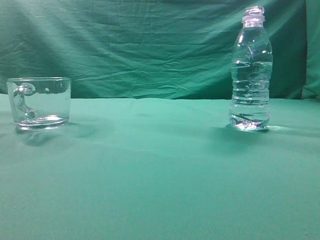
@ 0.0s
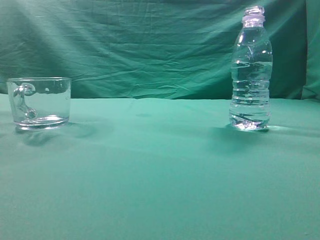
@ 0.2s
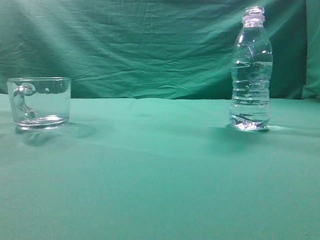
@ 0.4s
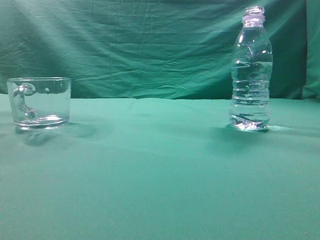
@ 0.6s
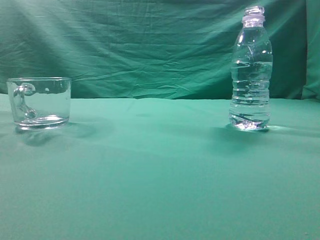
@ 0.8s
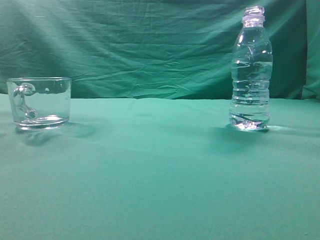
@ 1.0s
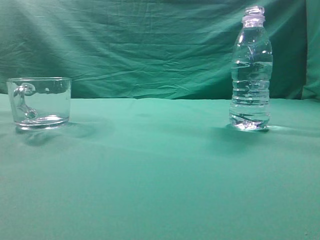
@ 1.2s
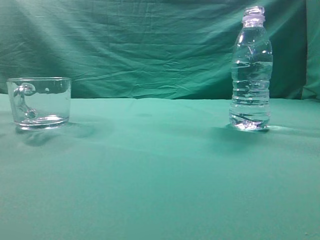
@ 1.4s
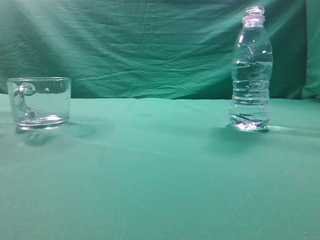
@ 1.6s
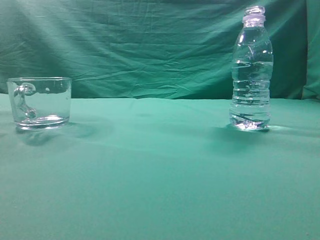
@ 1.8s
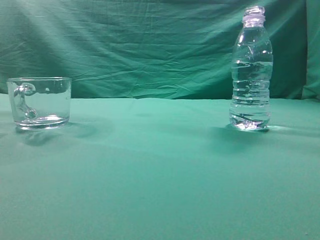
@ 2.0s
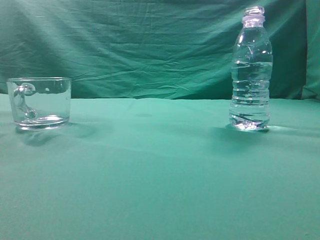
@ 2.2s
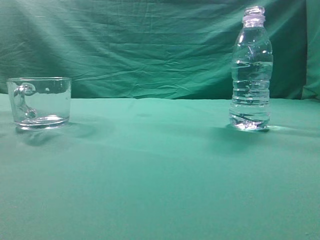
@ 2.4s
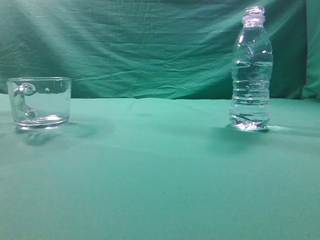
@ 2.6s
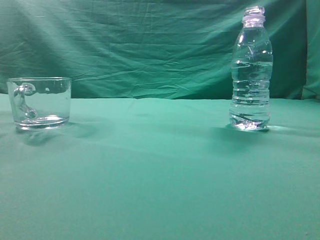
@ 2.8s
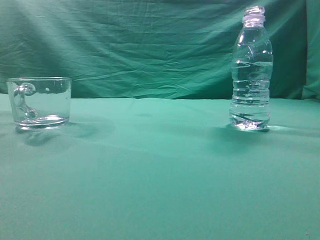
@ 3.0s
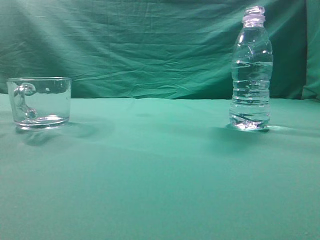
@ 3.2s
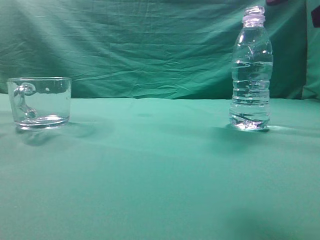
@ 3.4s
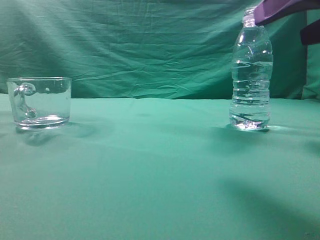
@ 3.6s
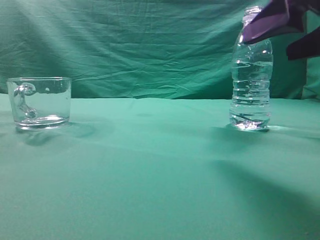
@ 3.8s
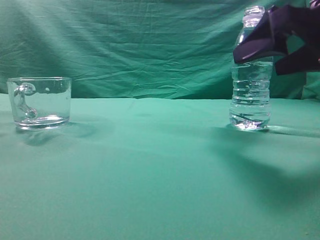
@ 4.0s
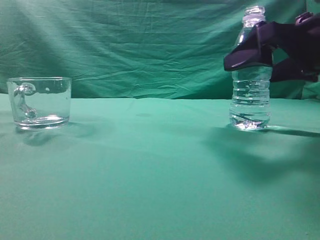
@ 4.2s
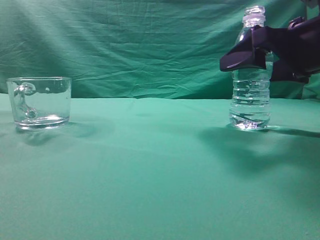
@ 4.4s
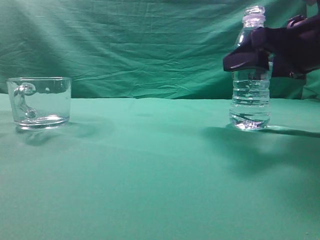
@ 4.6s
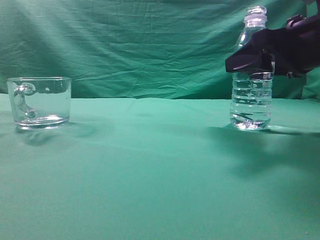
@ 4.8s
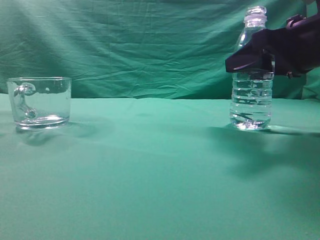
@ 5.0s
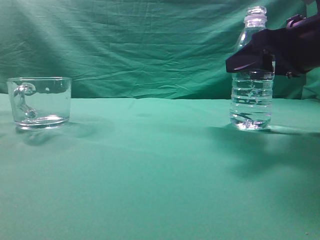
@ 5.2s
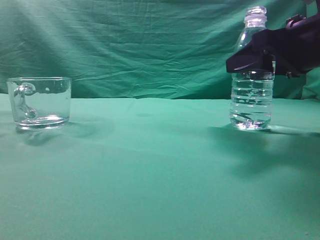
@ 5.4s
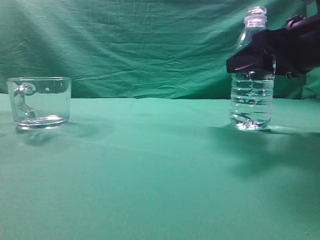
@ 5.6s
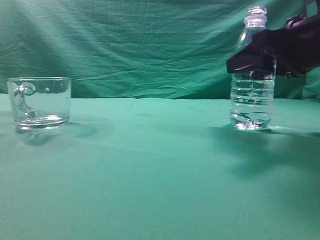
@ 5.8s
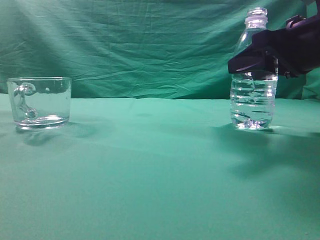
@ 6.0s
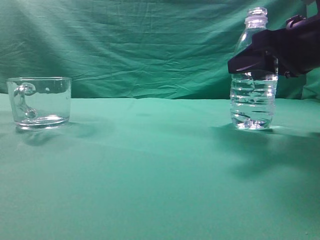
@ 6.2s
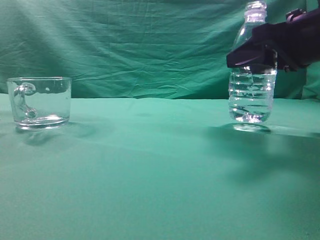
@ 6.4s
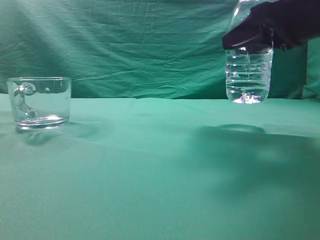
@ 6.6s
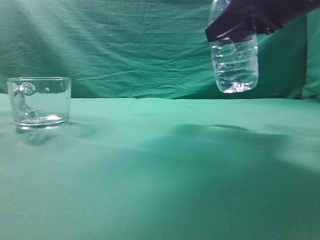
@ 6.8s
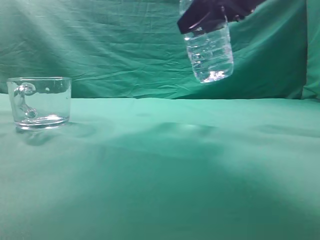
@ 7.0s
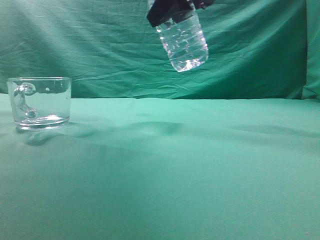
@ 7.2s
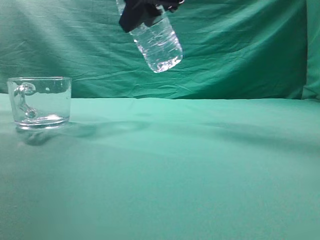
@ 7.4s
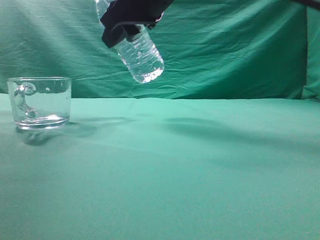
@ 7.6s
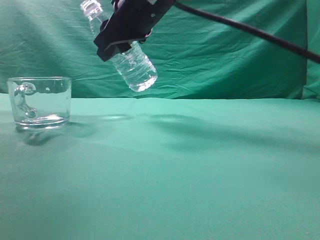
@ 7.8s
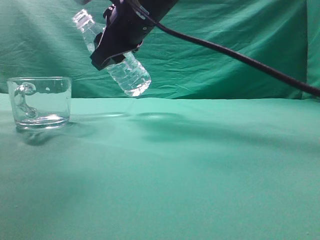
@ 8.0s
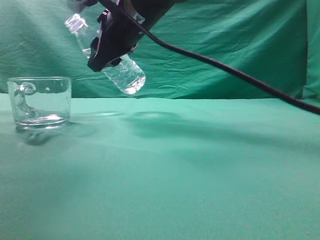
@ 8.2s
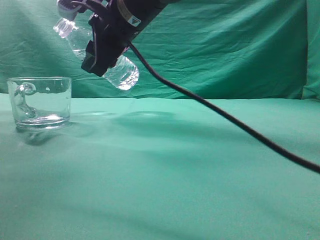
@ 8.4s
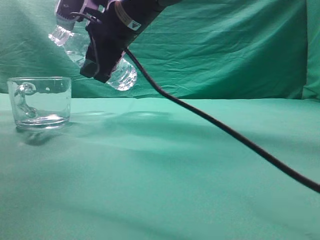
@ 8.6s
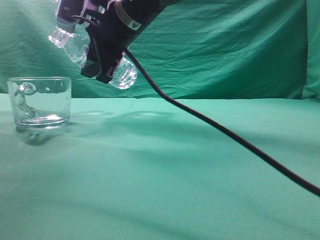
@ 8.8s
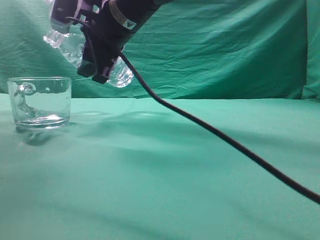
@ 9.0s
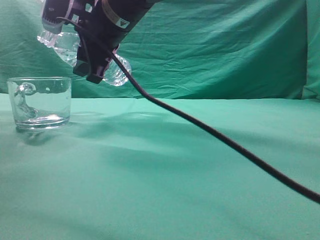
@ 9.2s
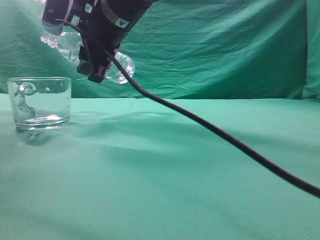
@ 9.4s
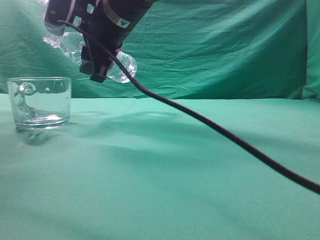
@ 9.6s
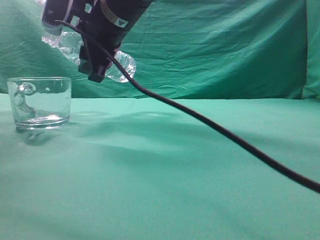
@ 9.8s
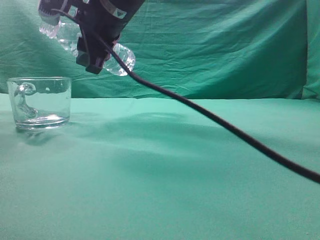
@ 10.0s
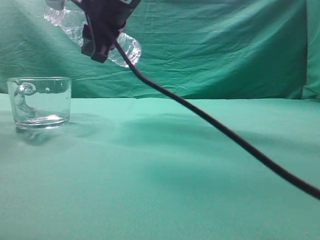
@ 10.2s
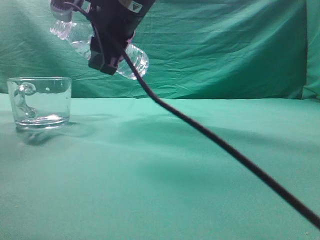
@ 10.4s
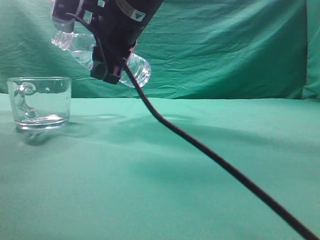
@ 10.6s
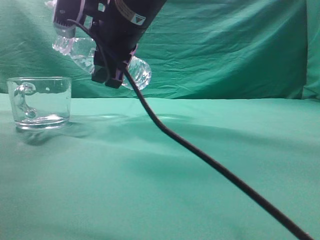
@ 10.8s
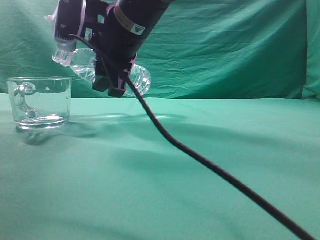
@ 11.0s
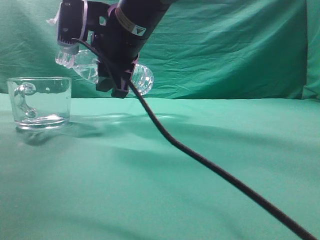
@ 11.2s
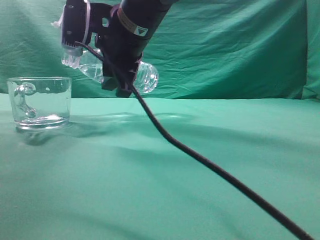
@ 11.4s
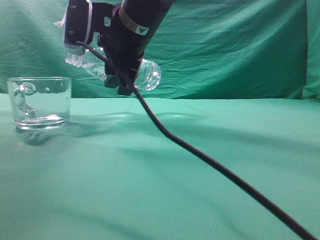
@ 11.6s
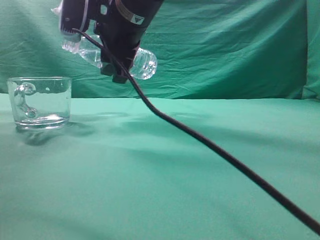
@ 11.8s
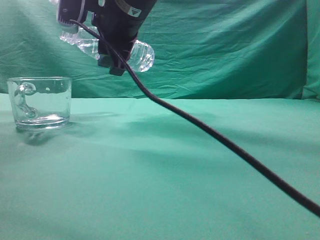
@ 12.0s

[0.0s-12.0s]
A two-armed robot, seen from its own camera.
Task of the whole recording: pick up the water bottle and pour the water in it into the glass.
Step, 0.0s to 6.8s: Grasp the mineral water bottle.
3.0s to 4.4s: The right gripper travels forward and downward by about 15 cm, and opens.
4.4s to 6.0s: The right gripper closes up.
6.0s to 7.6s: The right gripper shifts roughly 25 cm to the left and upward.
7.6s to 9.0s: The right gripper is displaced to the left by roughly 5 cm.
9.0s to 12.0s: The grippers stay close to where they were, moving slightly.

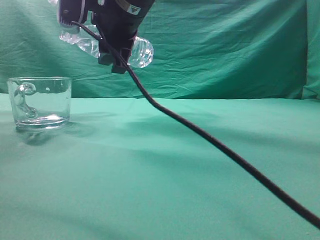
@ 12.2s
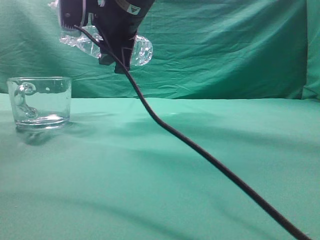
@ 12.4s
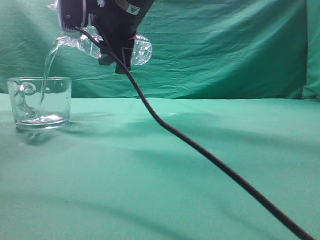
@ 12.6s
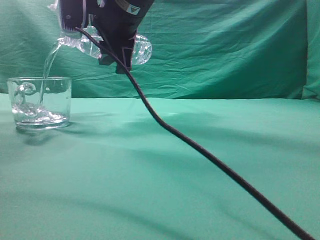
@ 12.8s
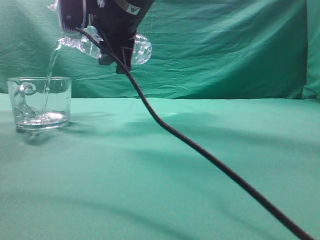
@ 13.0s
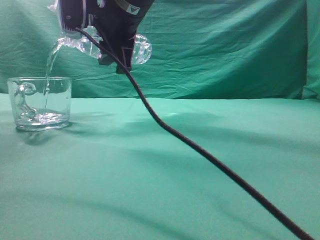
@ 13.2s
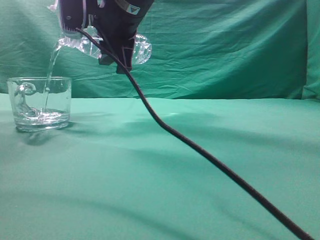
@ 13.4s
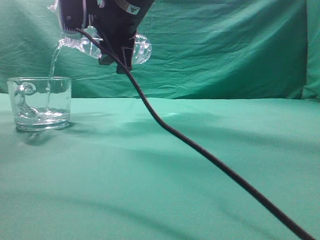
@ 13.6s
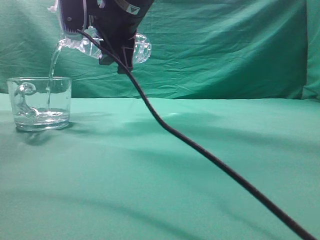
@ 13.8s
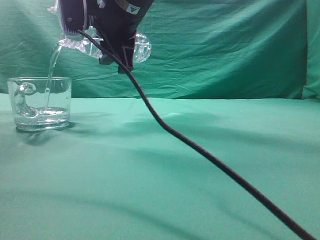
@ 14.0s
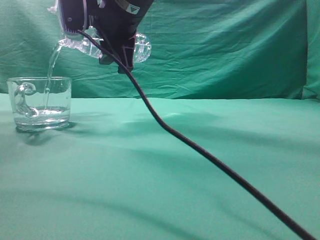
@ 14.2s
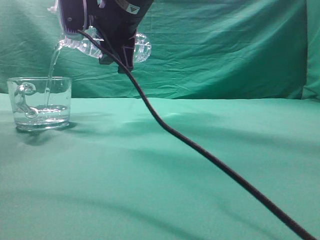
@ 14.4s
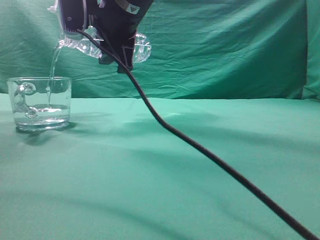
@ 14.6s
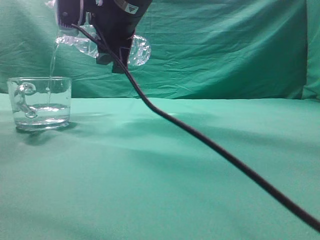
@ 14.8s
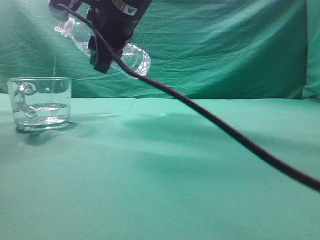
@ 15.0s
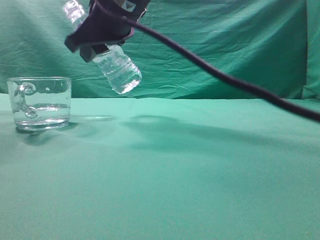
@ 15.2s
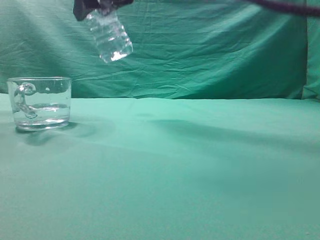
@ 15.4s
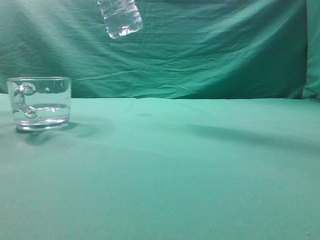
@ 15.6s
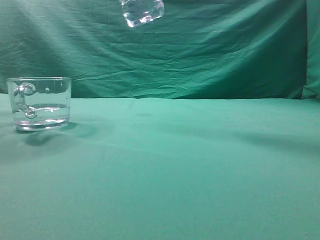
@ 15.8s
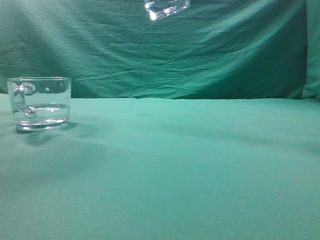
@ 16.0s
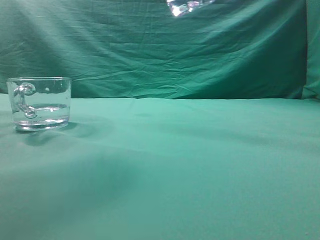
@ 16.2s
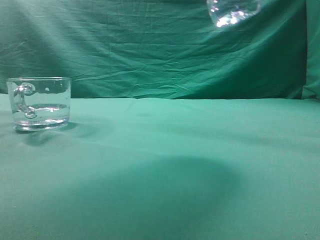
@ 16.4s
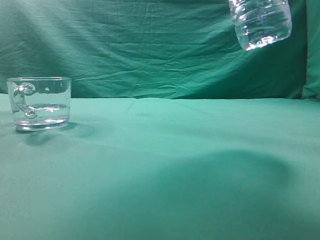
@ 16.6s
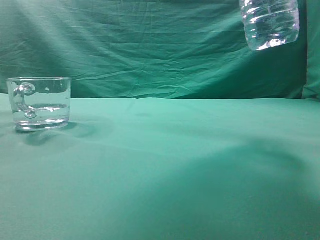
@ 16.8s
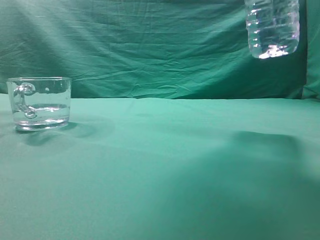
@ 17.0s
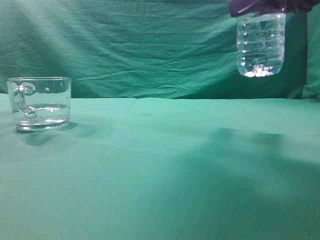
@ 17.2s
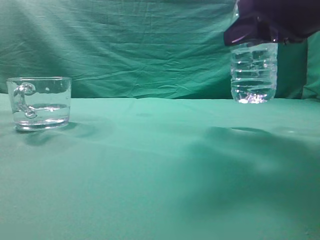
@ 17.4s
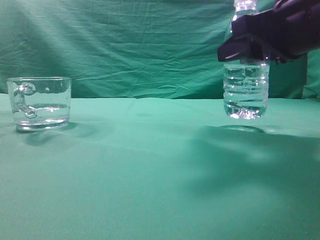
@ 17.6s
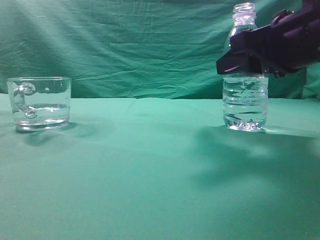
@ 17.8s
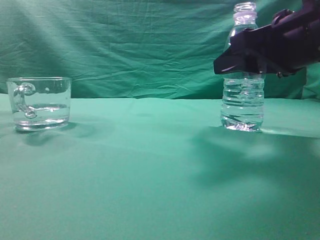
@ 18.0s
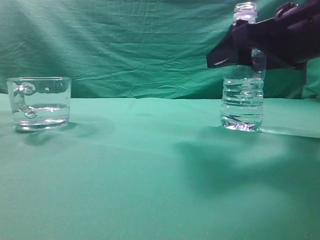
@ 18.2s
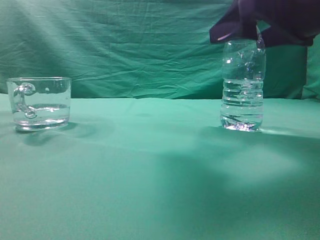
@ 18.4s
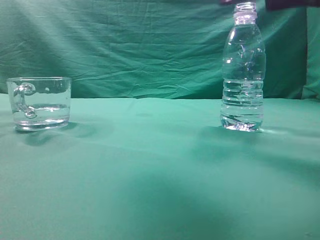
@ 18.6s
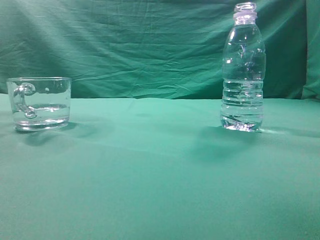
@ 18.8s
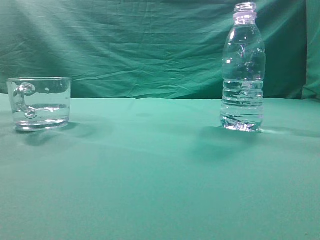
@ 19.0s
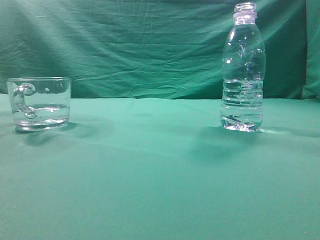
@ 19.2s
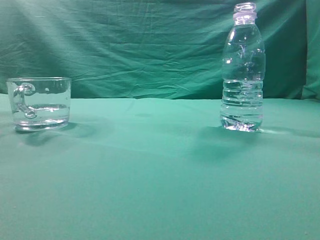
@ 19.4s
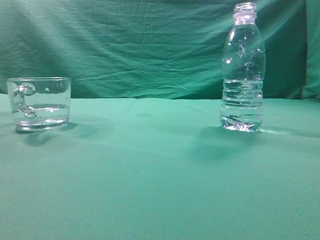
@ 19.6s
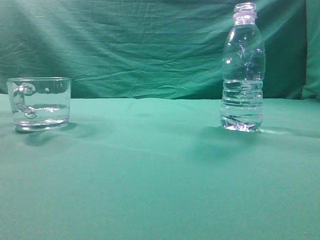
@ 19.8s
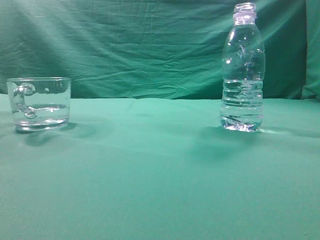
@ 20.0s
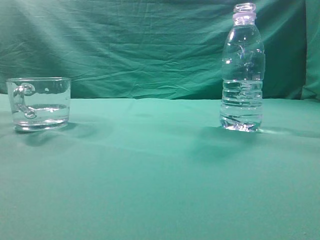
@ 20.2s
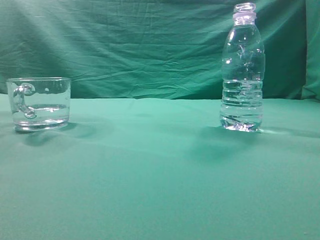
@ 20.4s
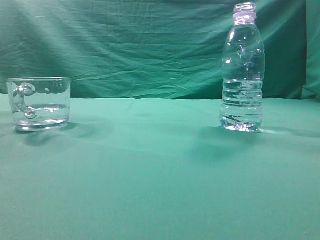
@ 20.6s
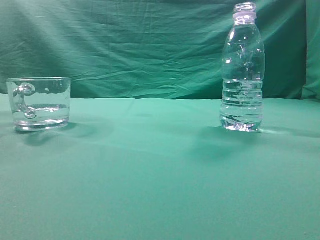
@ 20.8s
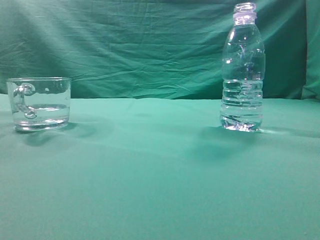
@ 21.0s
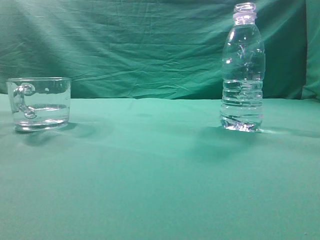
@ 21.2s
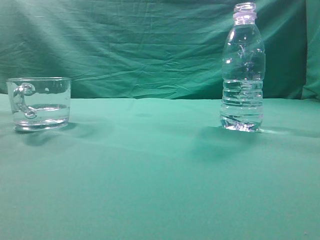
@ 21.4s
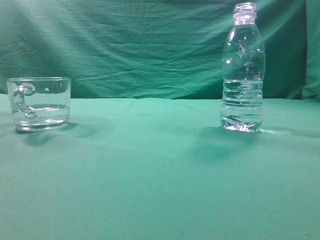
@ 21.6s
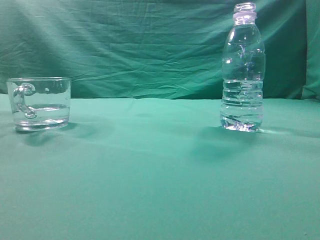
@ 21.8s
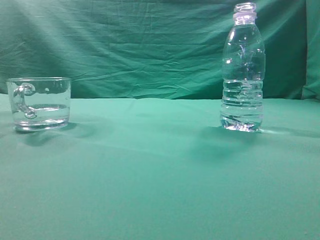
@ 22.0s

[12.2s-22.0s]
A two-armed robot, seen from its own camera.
Task of the whole recording: pick up the water bottle and pour the water in it into the glass.
Step, 12.2s to 15.0s: Pour water into the teacup.
12.2s to 13.6s: The grippers move only a little.
15.0s to 16.4s: The right gripper is displaced to the right, backward and upward by some 25 cm.
16.4s to 17.8s: The right gripper goes about 15 cm downward.
17.8s to 19.2s: The right gripper moves upward and backward, some 25 cm, and closes its fingers.
